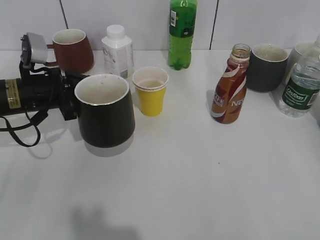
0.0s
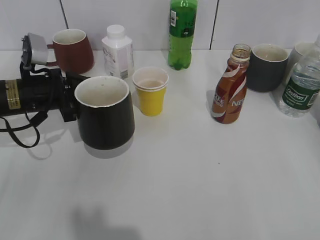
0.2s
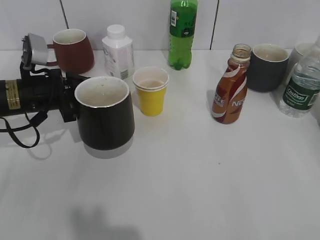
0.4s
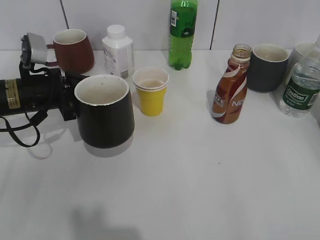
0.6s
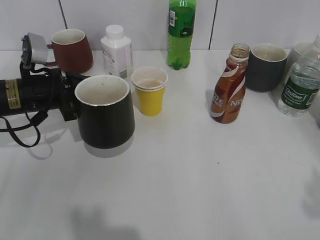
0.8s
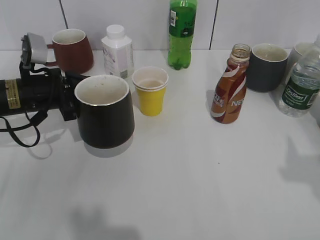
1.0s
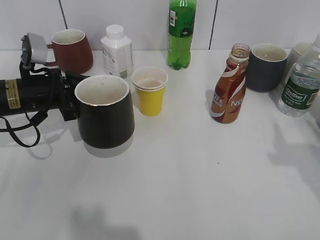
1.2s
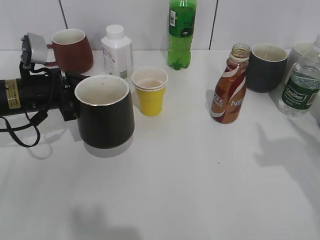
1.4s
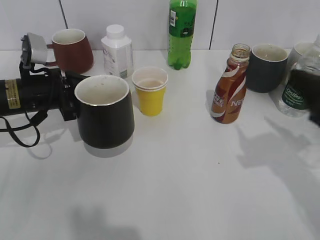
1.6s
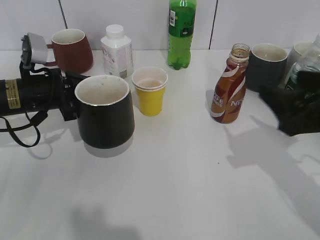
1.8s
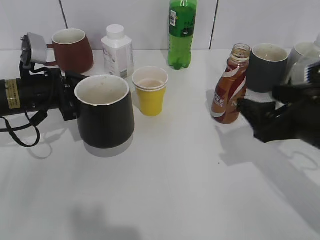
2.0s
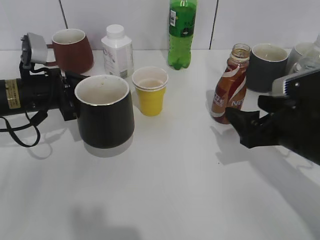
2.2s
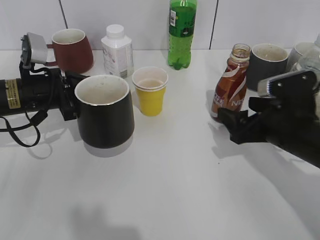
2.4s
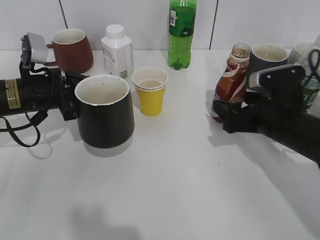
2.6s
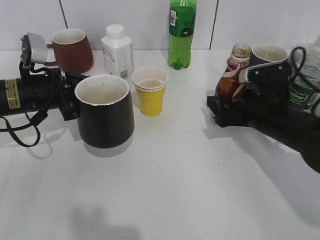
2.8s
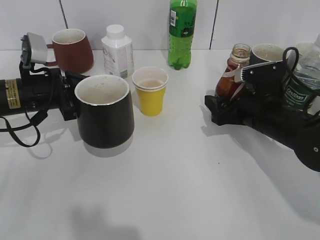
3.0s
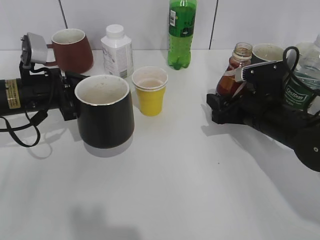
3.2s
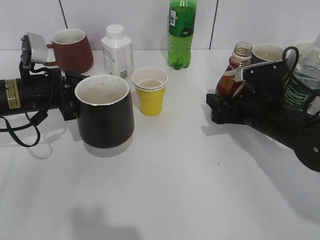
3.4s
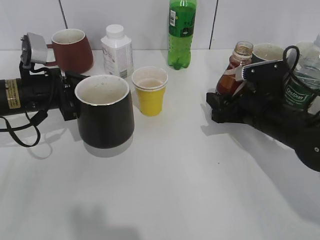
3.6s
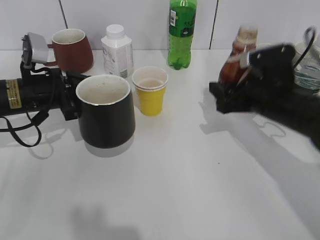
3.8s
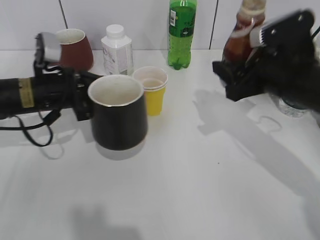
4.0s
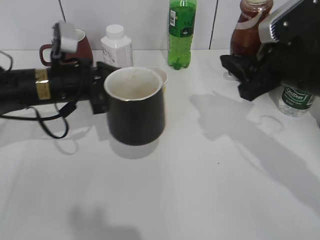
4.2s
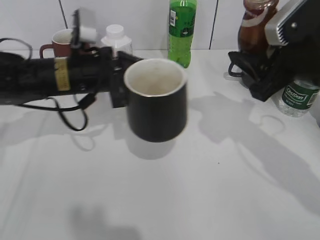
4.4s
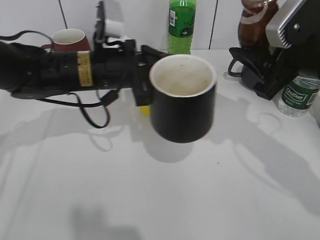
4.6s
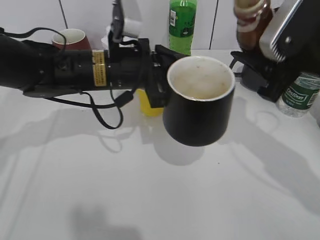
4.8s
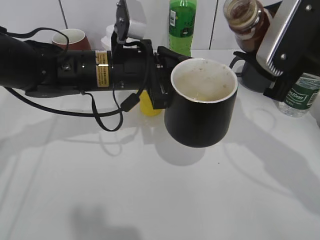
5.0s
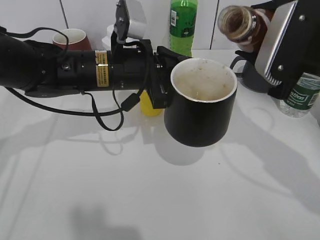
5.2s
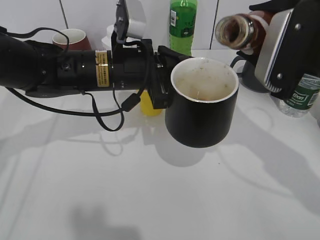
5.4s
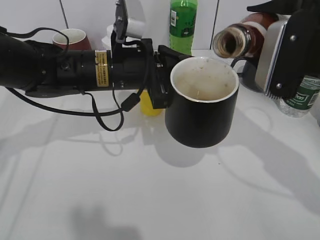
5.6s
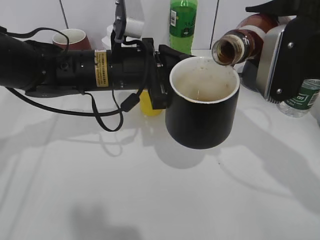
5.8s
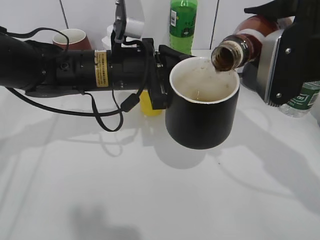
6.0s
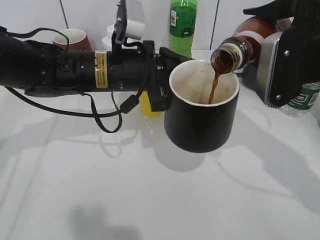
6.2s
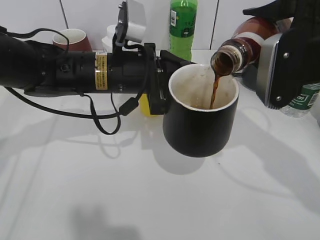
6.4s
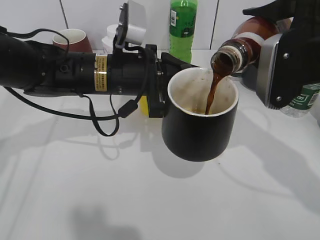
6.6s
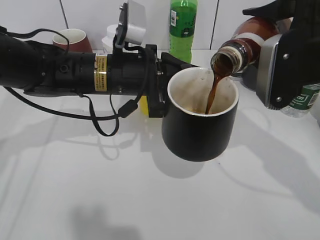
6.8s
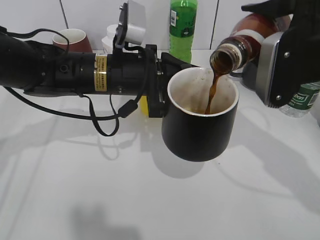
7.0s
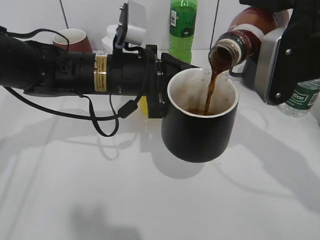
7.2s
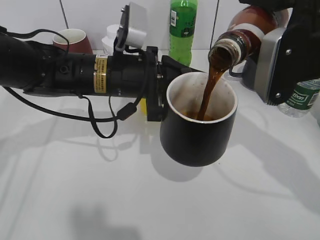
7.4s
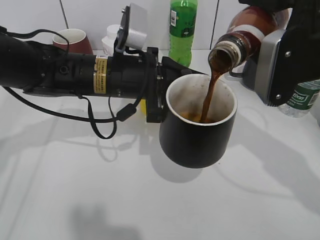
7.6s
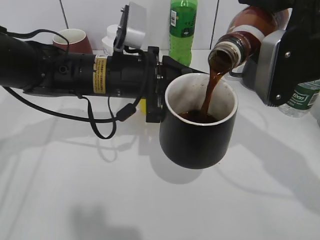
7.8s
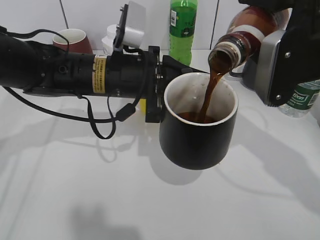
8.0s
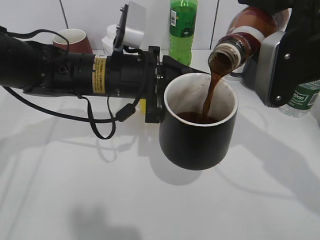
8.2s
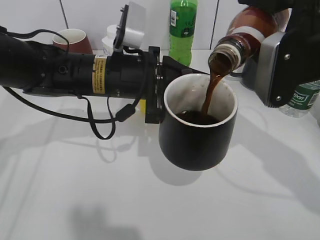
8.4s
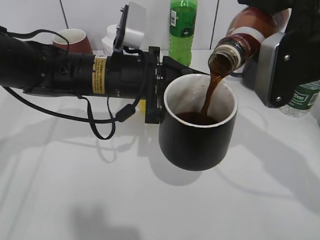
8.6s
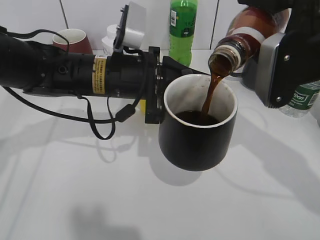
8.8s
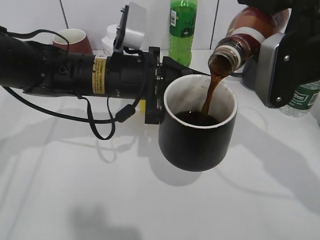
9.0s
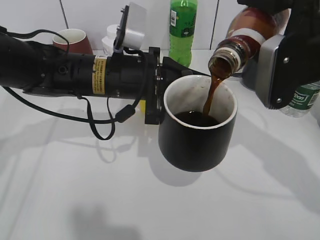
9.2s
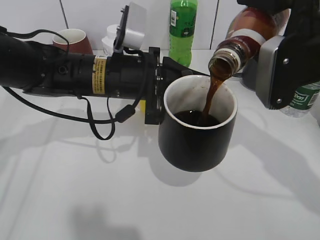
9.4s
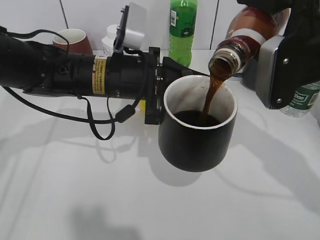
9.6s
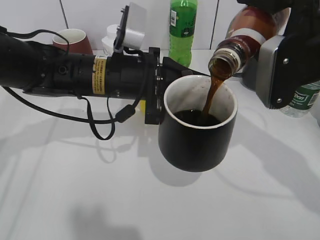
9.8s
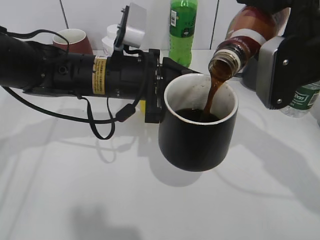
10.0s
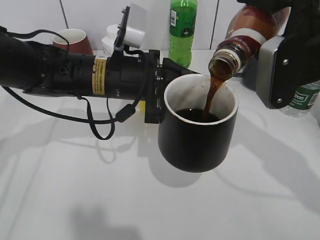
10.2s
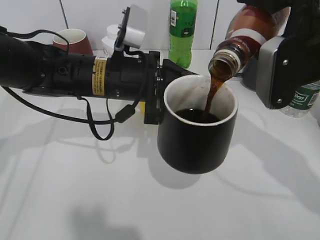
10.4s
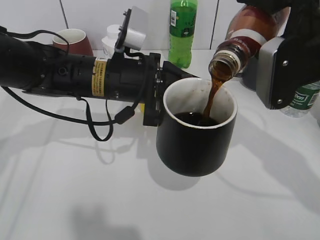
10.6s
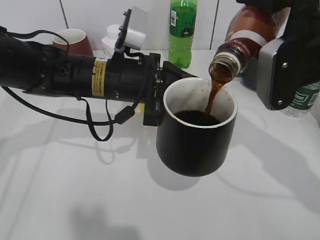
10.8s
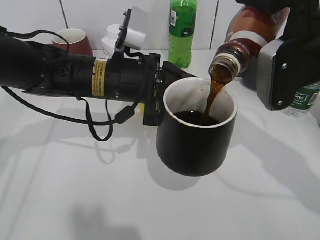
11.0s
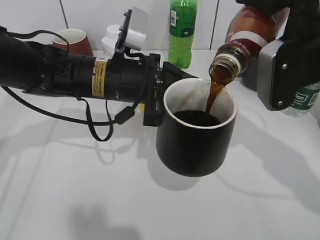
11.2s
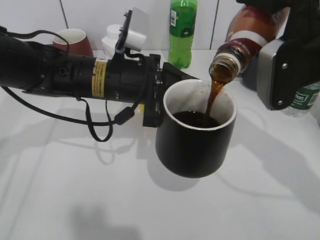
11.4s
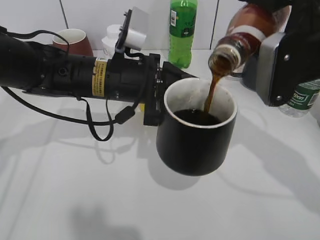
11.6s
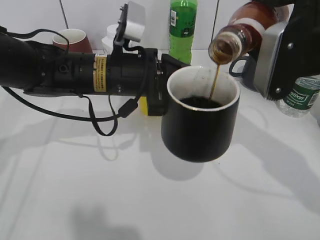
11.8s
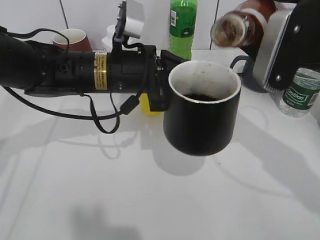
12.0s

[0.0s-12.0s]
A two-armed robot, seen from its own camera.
Step, 0.4s to 3.4s: Grasp the bottle with coffee with right gripper.
0.0s to 1.6s: The right gripper is displaced forward by some 15 cm.
1.6s to 3.0s: The right gripper heads downward, forward and to the left, covering approximately 20 cm, and opens up.
3.0s to 4.4s: The left gripper travels to the right by roughly 10 cm, while the right gripper is displaced upward by roughly 15 cm, and closes its fingers.
4.4s to 6.0s: The left gripper moves to the right, roughly 5 cm.
6.0s to 7.6s: The grippers move only a little.
7.6s to 9.0s: The two grippers keep their place.
9.0s to 10.4s: The two grippers keep their place.
10.4s to 12.0s: There are only small adjustments of the grippers.

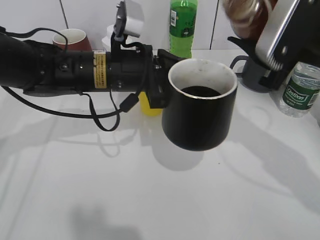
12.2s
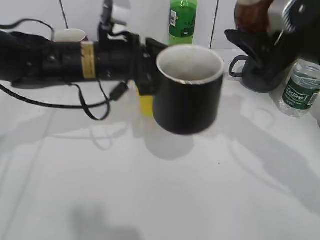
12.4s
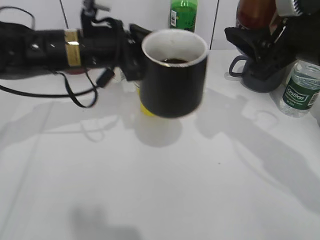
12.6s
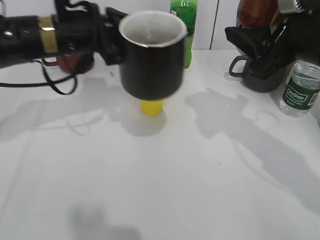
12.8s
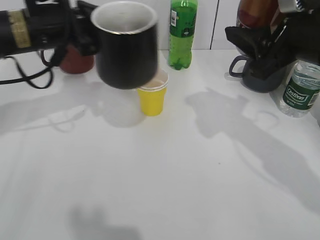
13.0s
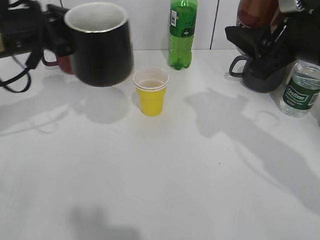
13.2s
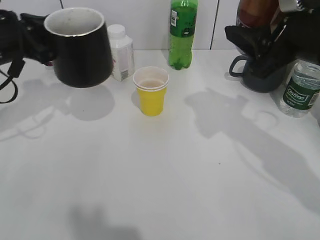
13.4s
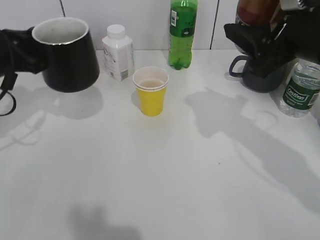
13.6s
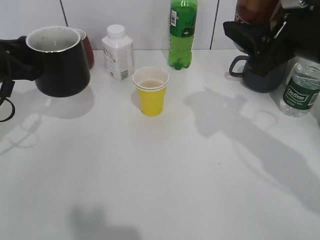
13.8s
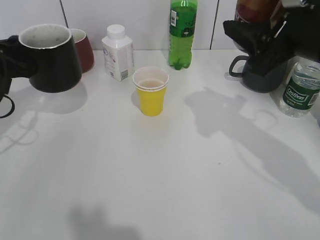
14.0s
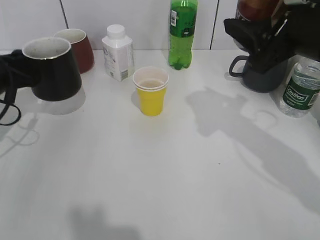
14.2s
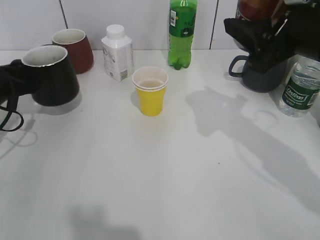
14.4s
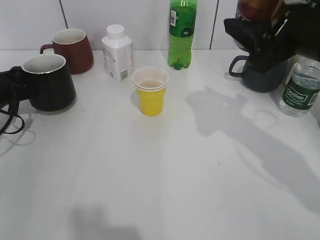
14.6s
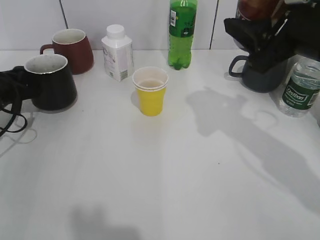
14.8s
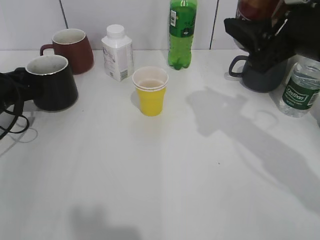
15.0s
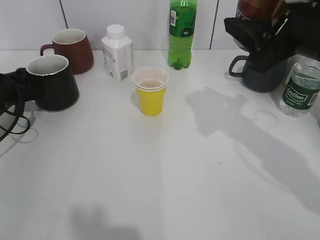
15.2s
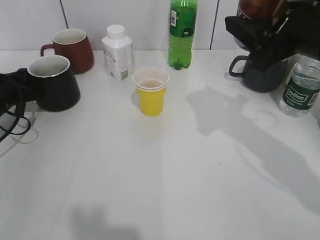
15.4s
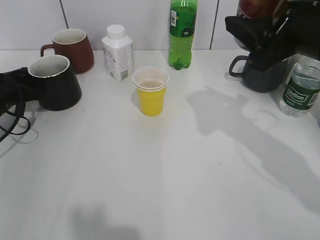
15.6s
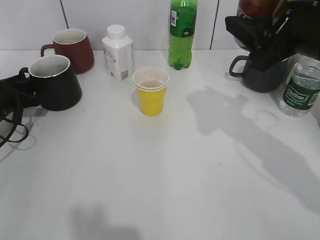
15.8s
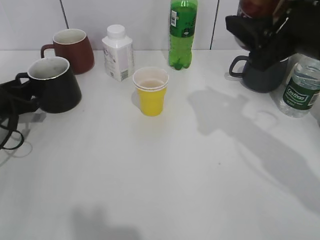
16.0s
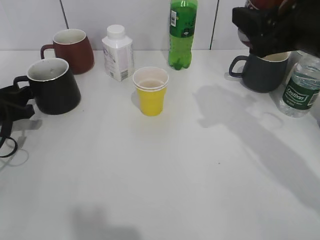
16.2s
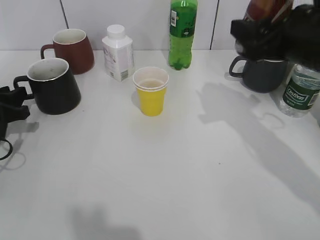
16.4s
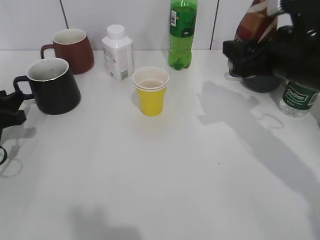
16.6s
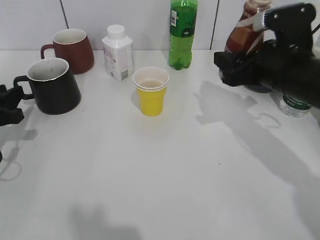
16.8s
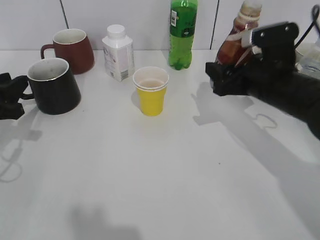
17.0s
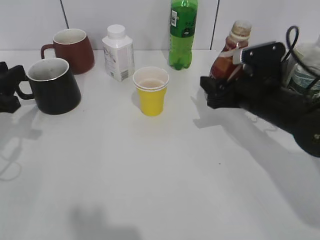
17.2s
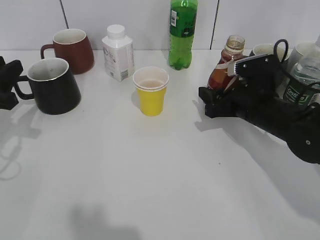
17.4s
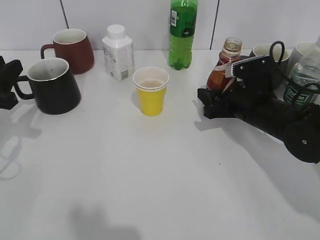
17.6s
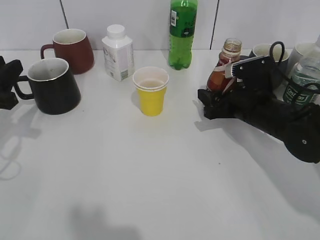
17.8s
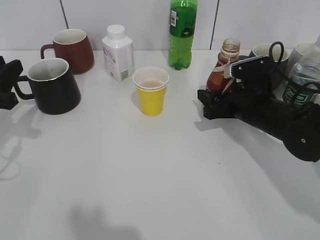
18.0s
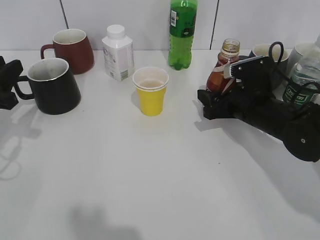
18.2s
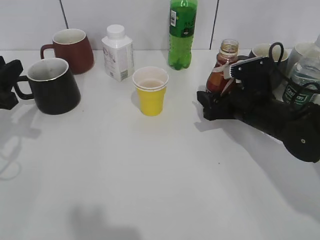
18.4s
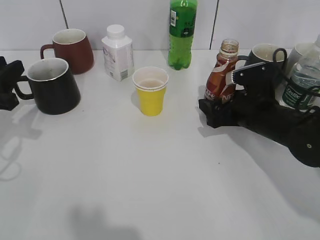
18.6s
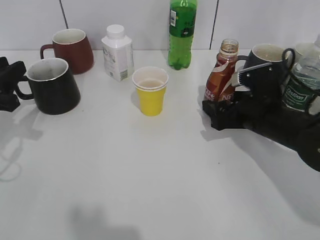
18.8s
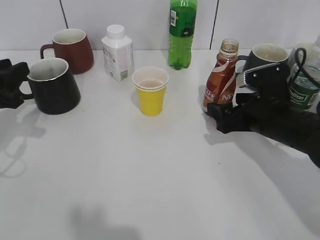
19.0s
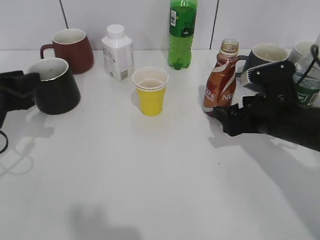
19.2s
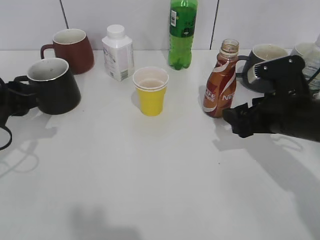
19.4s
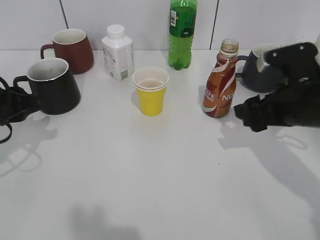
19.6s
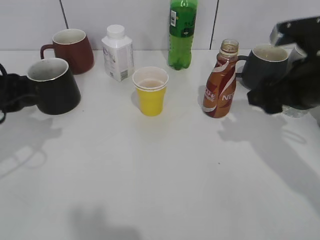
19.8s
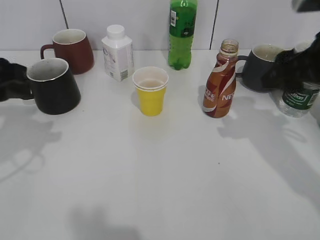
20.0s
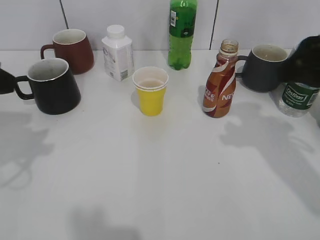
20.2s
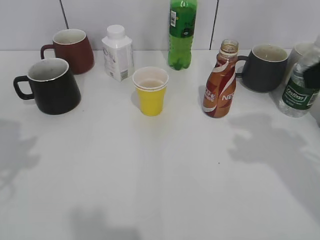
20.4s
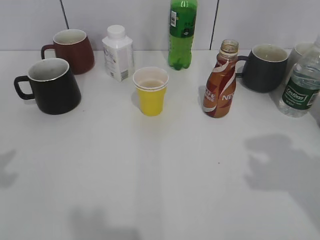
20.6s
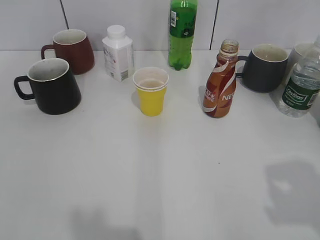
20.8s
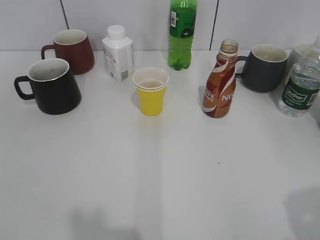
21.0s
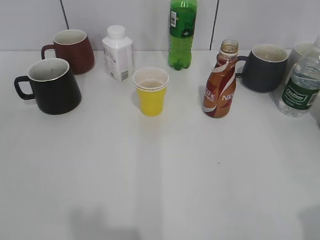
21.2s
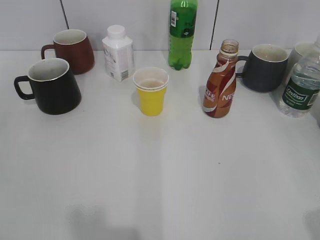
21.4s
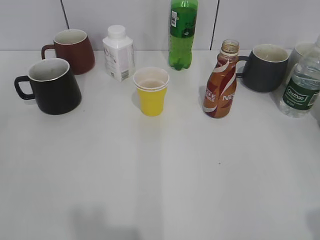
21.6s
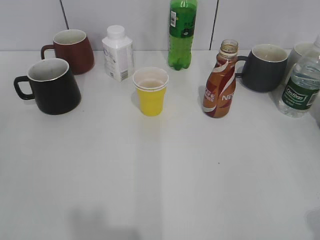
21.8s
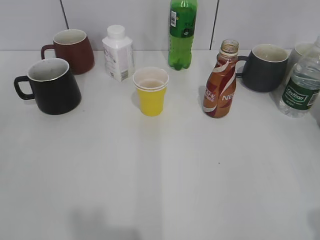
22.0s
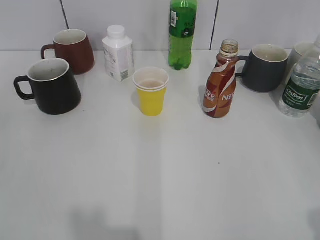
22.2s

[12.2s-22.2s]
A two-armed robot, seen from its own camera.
Step, 12.2s to 16.4s: Place the black cup on the table with left gripper.
Step, 16.6s to 18.8s: Place the coffee bottle on the table with right gripper.
12.2s to 13.6s: The left gripper goes some 20 cm to the left.
13.6s to 15.0s: The left gripper goes approximately 10 cm downward.
15.0s to 16.4s: The left gripper travels backward by some 5 cm, and opens its fingers.
16.4s to 18.0s: The right gripper goes about 15 cm downward, while the left gripper shifts some 5 cm upward.
18.0s to 19.4s: The right gripper heads backward, covering about 5 cm, and opens.
19.4s to 20.8s: The grippers both shift backward and upward by approximately 25 cm.
20.8s to 22.2s: The right gripper goes some 10 cm backward and downward.
